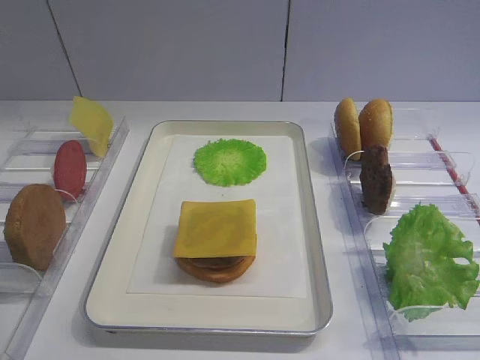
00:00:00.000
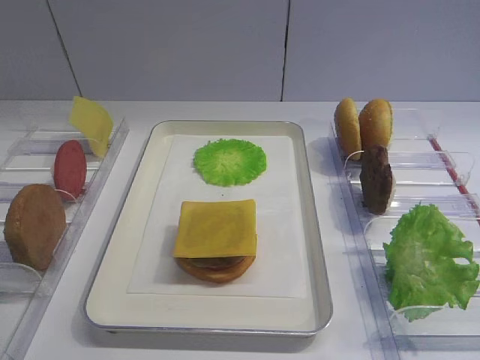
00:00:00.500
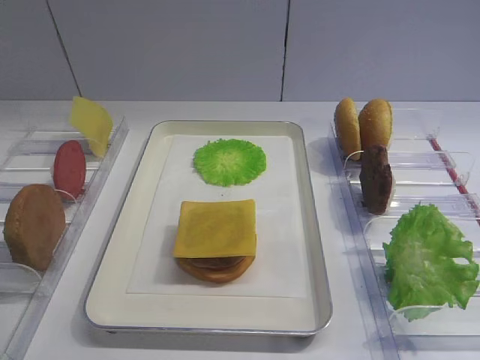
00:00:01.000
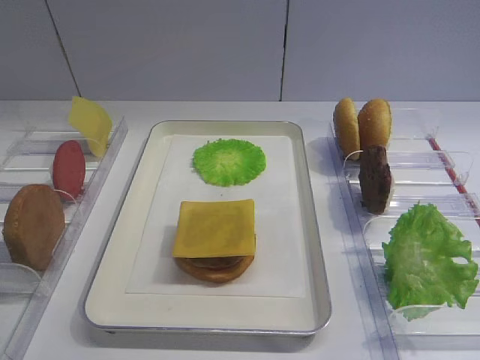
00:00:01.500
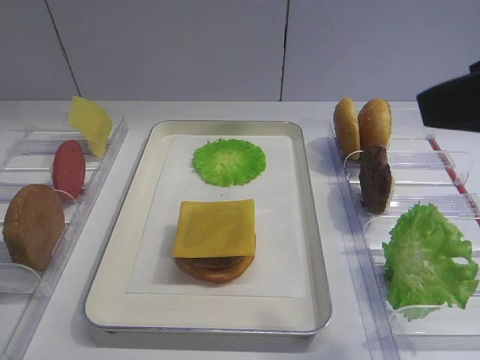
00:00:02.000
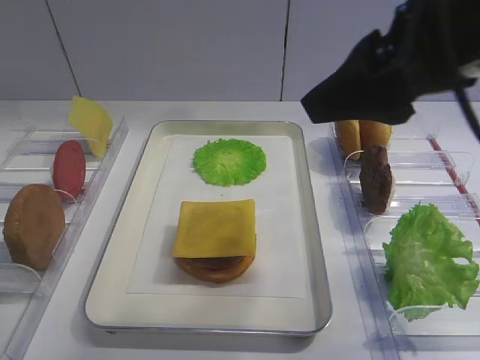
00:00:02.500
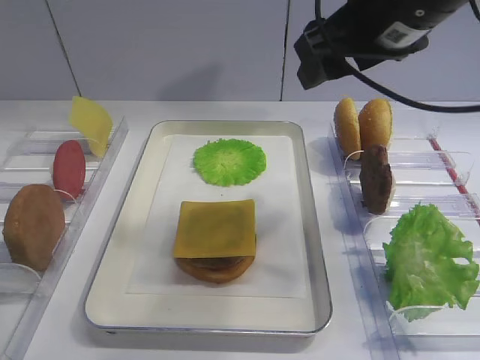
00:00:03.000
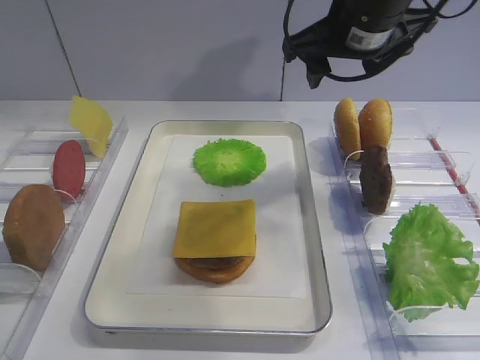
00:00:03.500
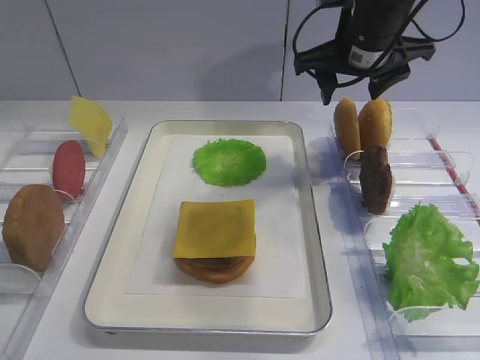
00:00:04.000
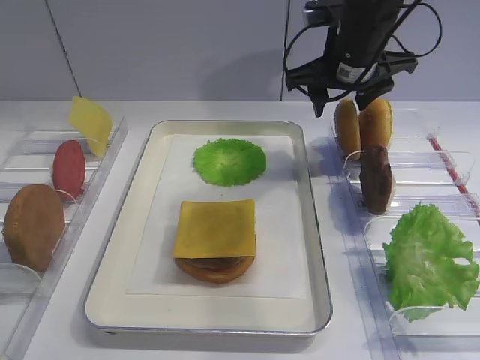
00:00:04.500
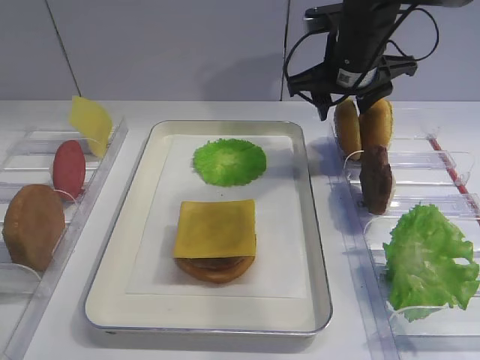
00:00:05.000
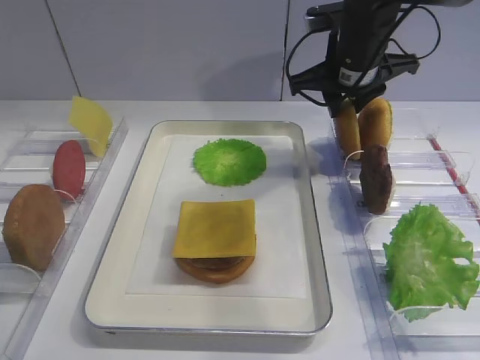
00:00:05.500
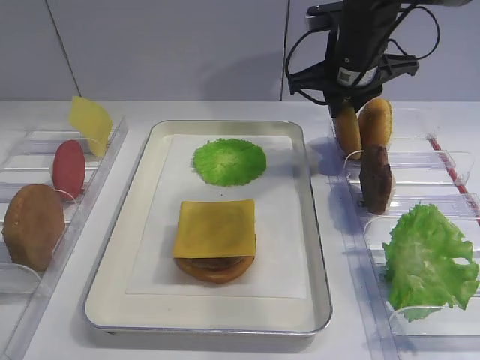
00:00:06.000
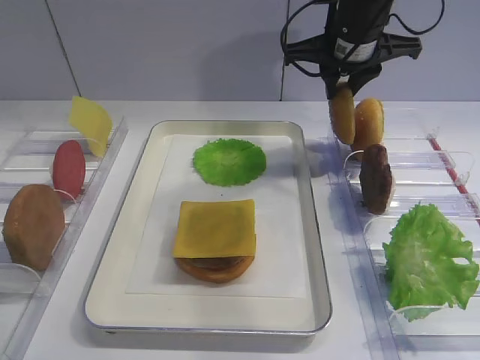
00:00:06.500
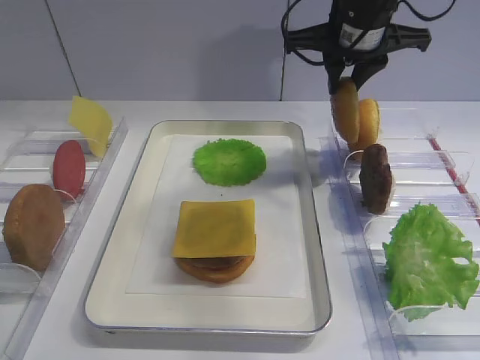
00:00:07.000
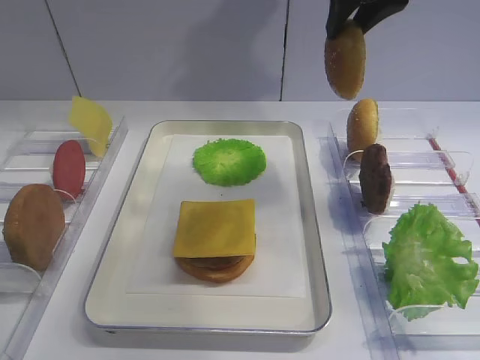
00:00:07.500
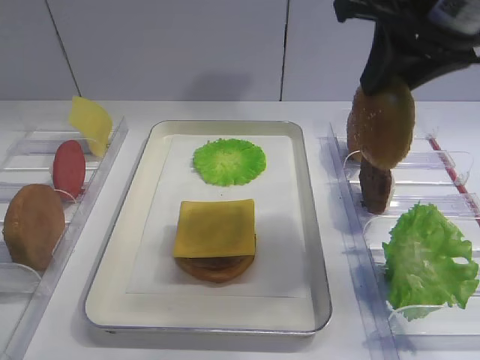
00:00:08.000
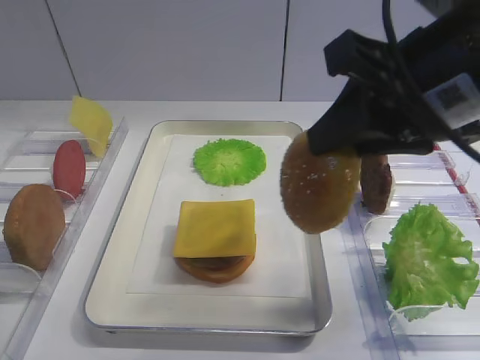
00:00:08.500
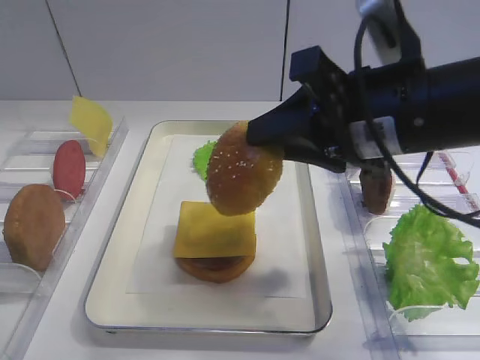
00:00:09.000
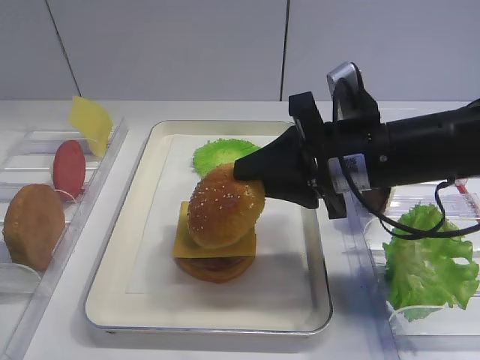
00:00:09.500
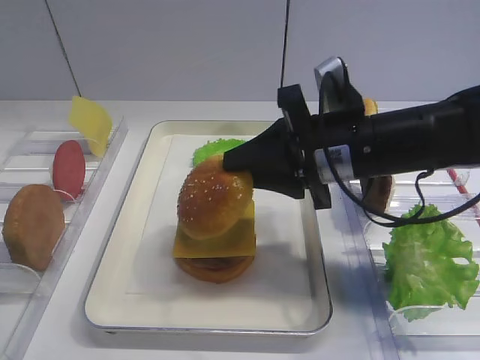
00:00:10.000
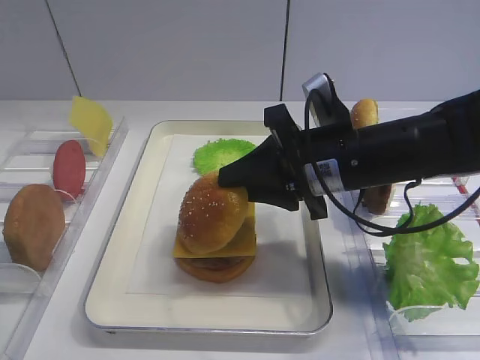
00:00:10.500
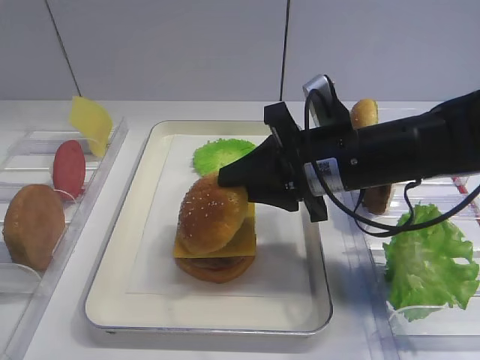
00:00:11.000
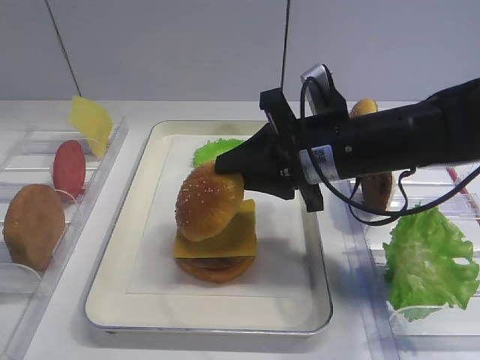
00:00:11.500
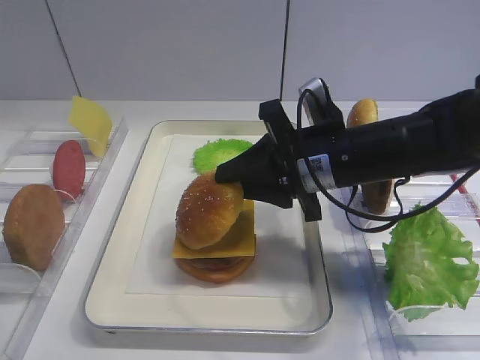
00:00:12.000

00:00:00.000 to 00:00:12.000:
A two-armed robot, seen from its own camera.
Step, 00:00:00.000 to 00:00:07.000: Pick up the hamburger lid with the right gripper.
00:00:02.000 to 00:00:04.000: The right gripper travels forward by some 25 cm.
00:00:04.000 to 00:00:06.000: The right gripper closes its fingers.
00:00:06.000 to 00:00:08.000: The right gripper shifts some 20 cm backward and upward.
00:00:08.000 to 00:00:10.000: The right gripper travels downward by approximately 15 cm.
00:00:10.000 to 00:00:12.000: There are only small adjustments of the grippers.

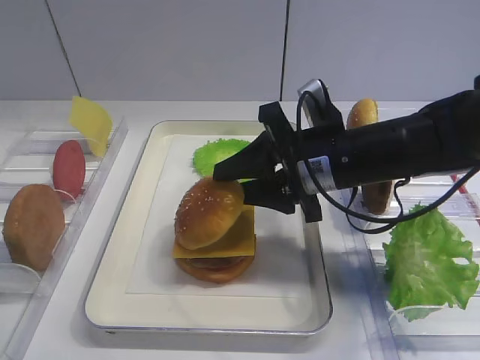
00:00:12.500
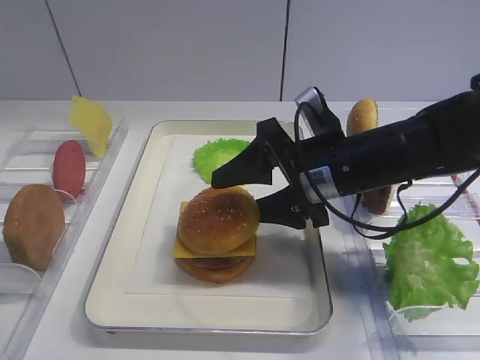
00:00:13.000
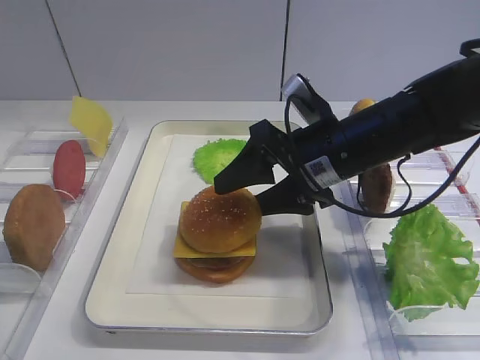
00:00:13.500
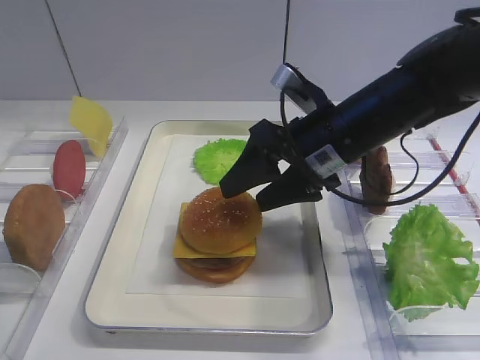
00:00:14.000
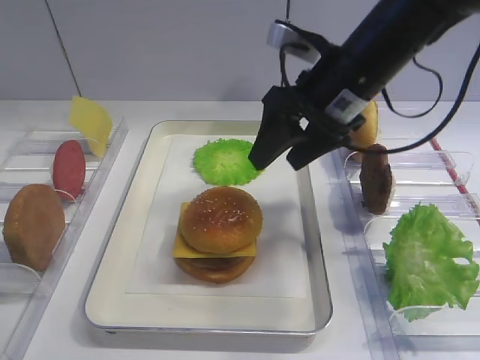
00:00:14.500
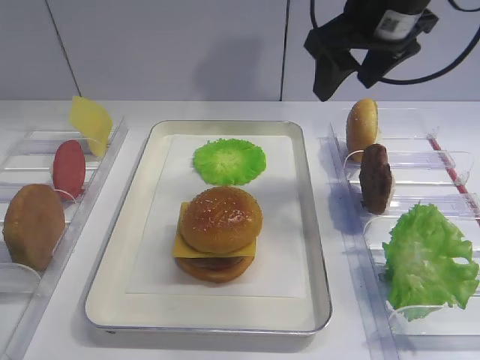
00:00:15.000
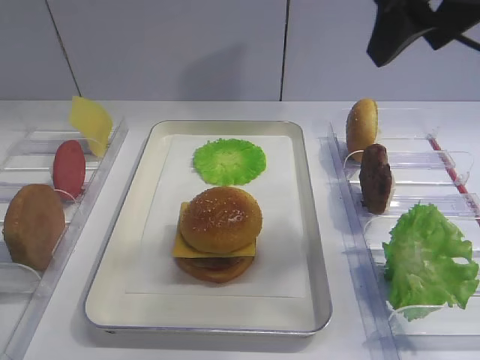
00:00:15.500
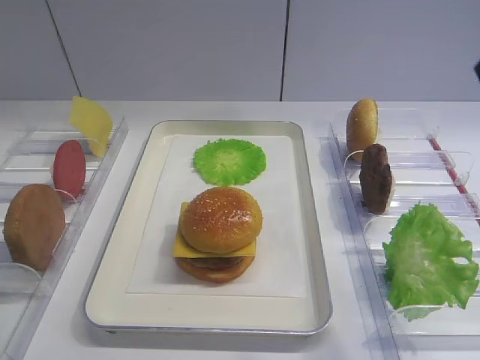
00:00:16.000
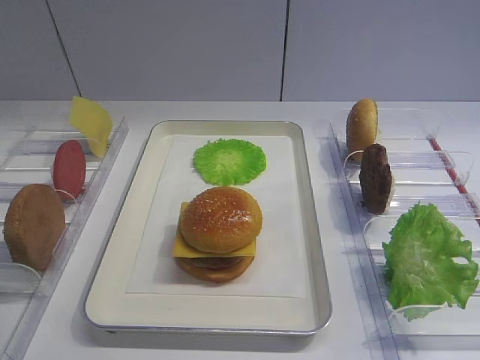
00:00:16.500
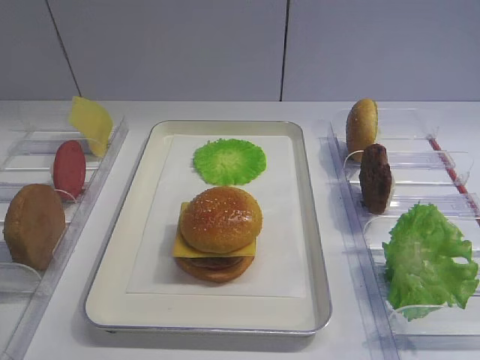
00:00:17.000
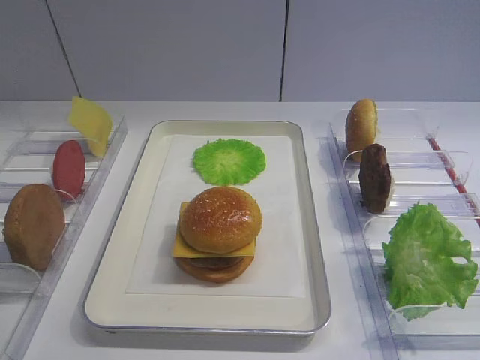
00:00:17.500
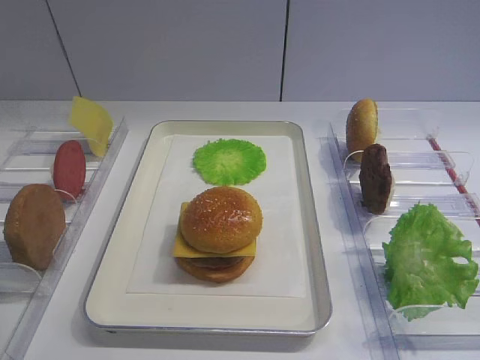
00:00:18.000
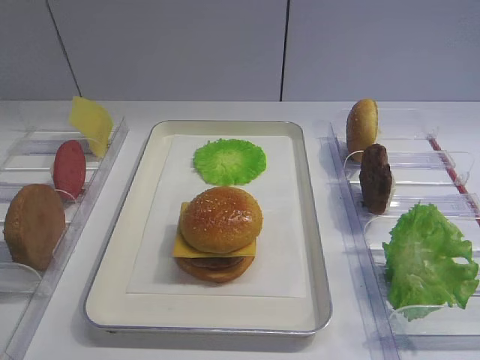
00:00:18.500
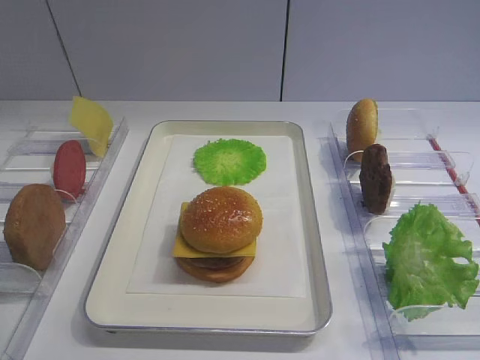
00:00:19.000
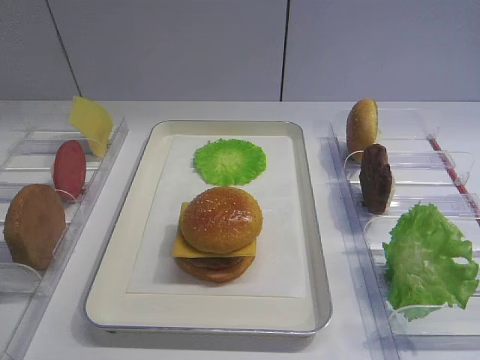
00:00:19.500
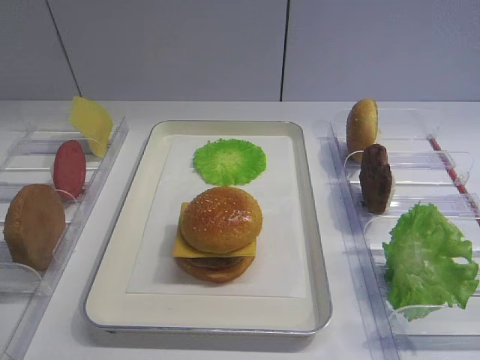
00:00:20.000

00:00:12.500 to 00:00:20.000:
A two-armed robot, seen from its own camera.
Step, 00:00:12.500 to 00:00:14.500: Place the hamburger lid on the cheese slice with the right gripper.
00:00:12.500 to 00:00:14.500: The right gripper heads upward, covering about 5 cm, and opens.
00:00:14.500 to 00:00:16.500: The right gripper goes roughly 35 cm backward and to the right.
00:00:18.000 to 00:00:20.000: Both grippers stay about where they are.

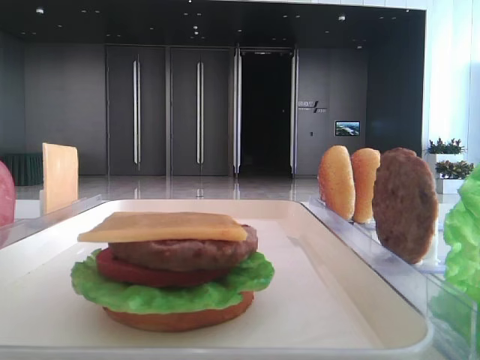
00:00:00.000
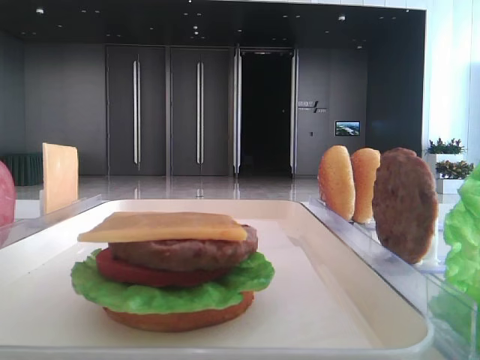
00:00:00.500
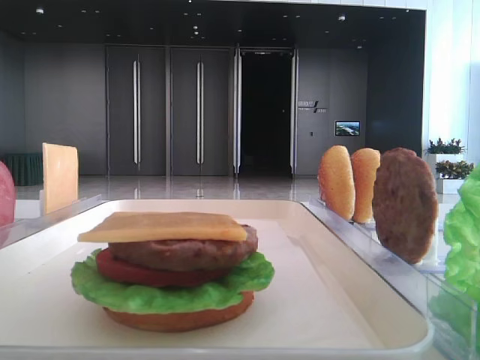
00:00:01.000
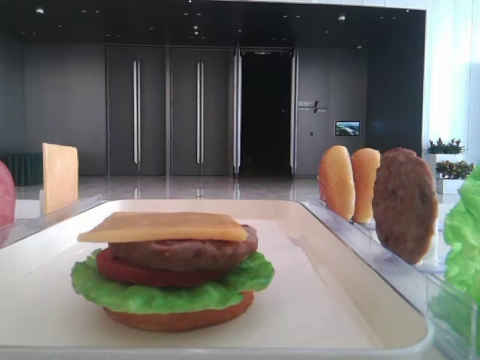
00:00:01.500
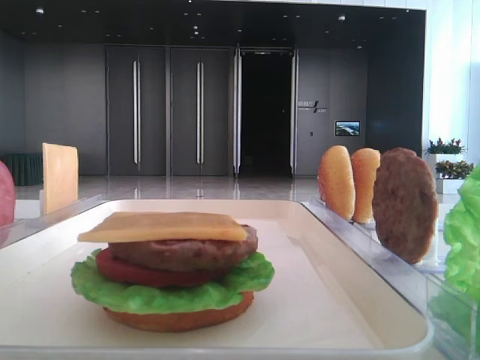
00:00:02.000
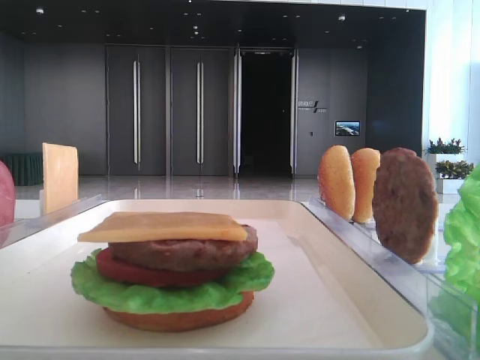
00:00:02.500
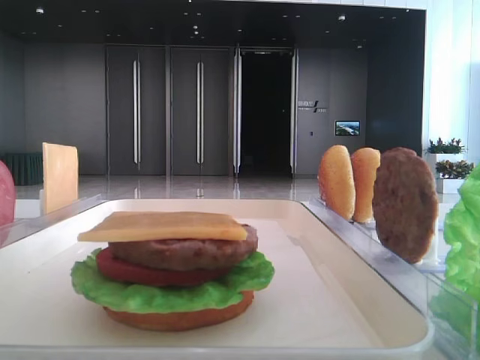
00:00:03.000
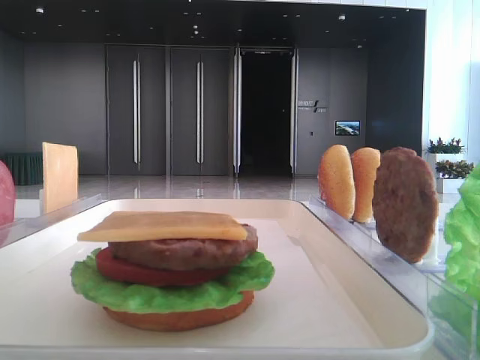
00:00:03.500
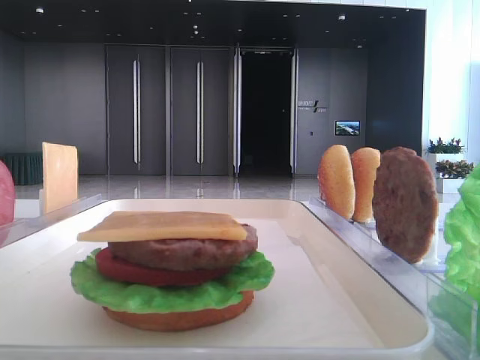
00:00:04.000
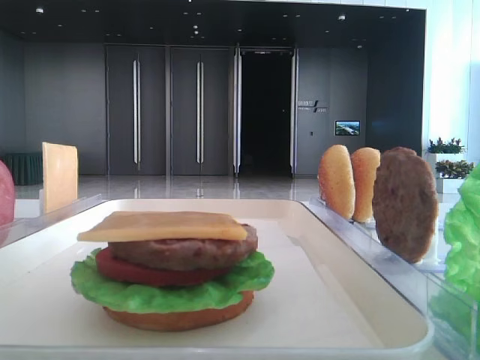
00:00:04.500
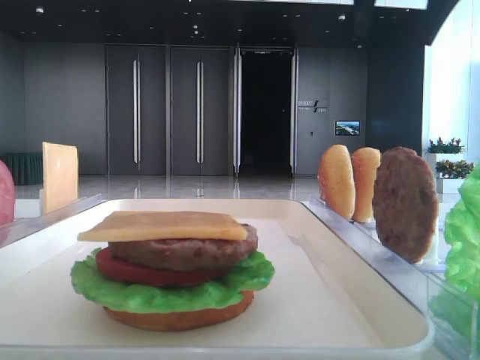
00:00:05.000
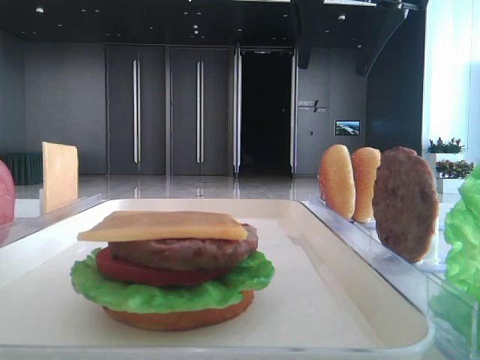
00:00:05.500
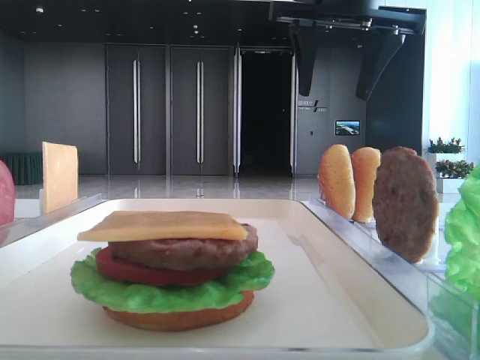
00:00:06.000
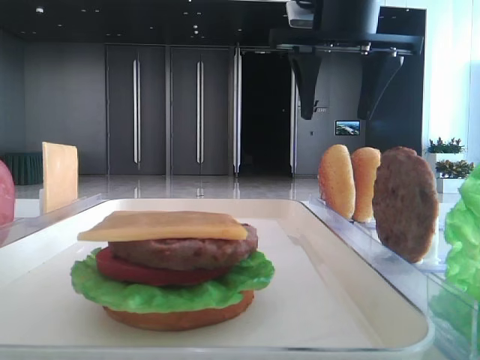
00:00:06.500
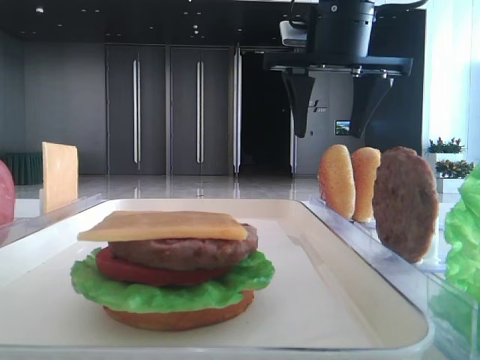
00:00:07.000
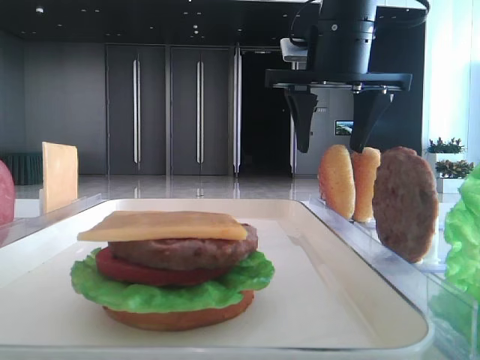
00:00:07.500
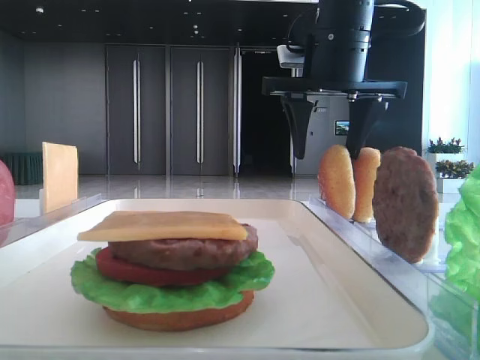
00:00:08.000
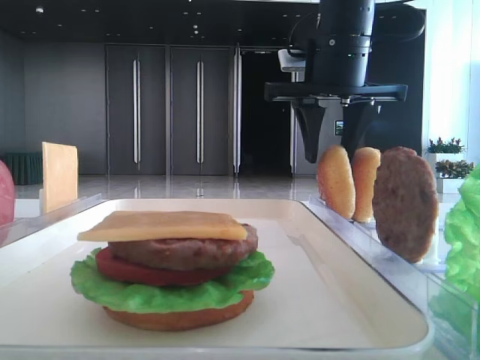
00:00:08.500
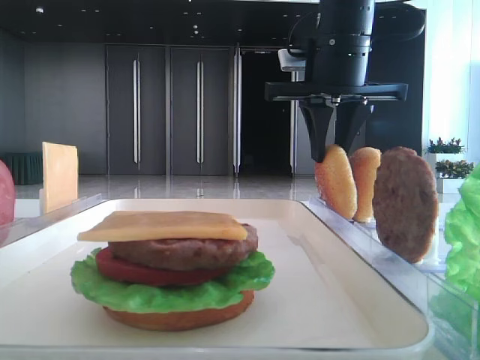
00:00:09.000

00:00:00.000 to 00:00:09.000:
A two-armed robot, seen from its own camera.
Step, 00:00:00.000 to 00:00:08.500: Pick up the top bread slice with the right hand.
00:00:04.500 to 00:00:07.000: The right gripper heads to the left, downward and forward, covering some 25 cm.
00:00:07.000 to 00:00:09.000: The right gripper closes.
